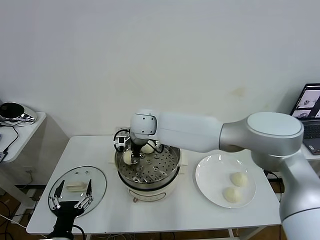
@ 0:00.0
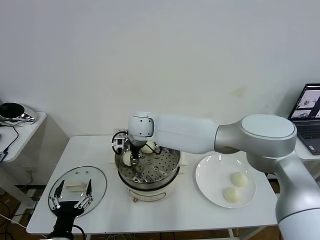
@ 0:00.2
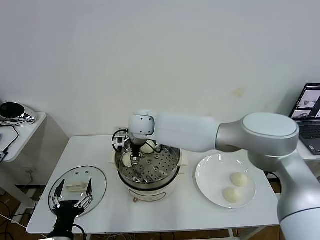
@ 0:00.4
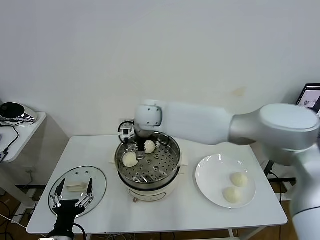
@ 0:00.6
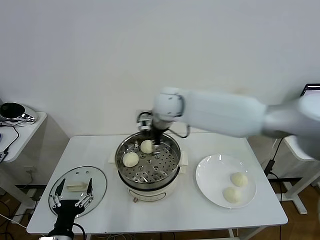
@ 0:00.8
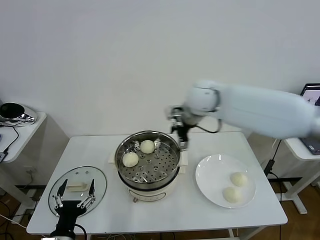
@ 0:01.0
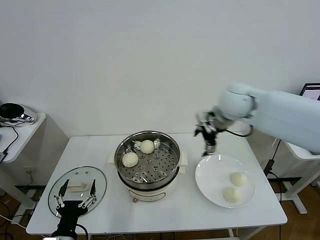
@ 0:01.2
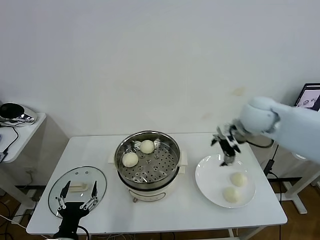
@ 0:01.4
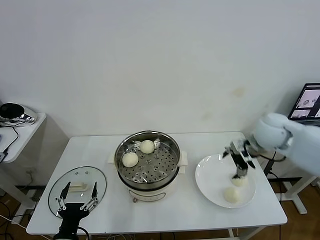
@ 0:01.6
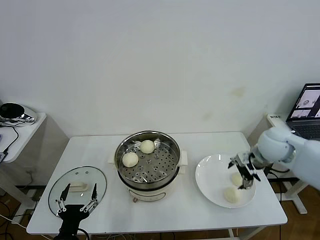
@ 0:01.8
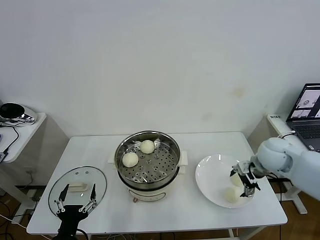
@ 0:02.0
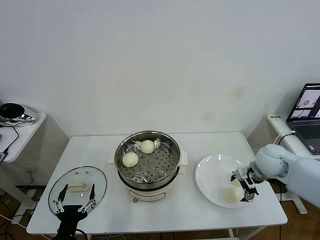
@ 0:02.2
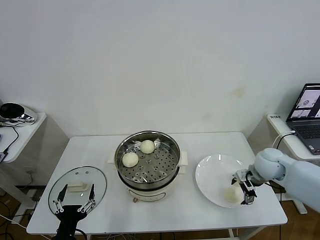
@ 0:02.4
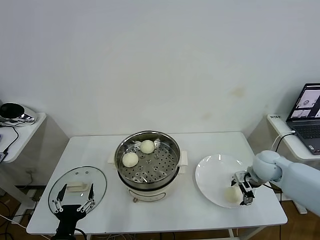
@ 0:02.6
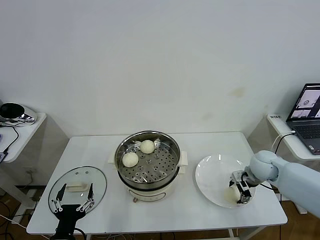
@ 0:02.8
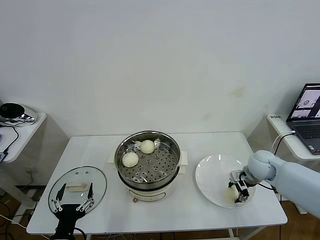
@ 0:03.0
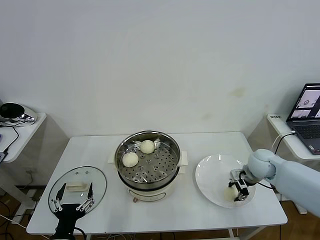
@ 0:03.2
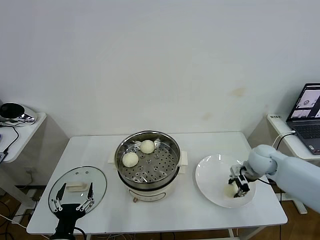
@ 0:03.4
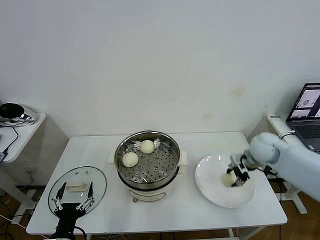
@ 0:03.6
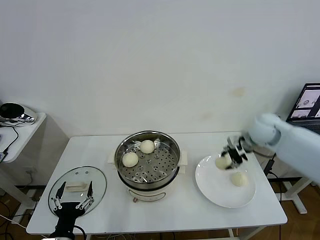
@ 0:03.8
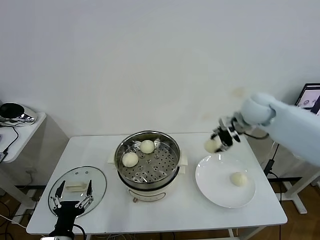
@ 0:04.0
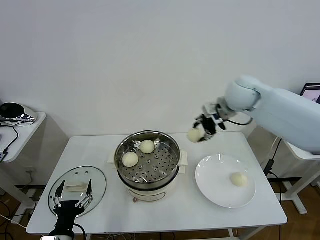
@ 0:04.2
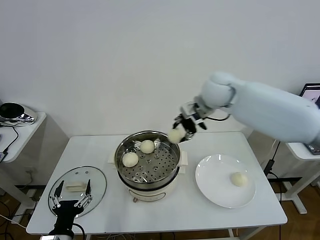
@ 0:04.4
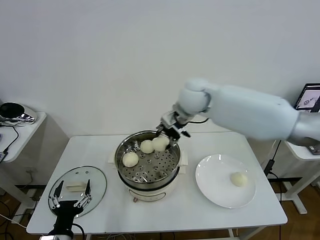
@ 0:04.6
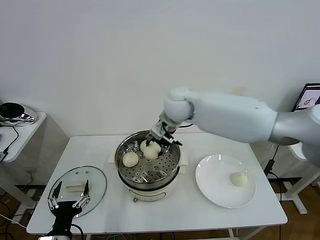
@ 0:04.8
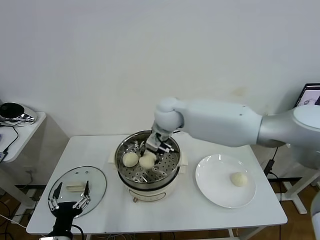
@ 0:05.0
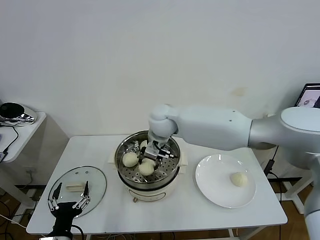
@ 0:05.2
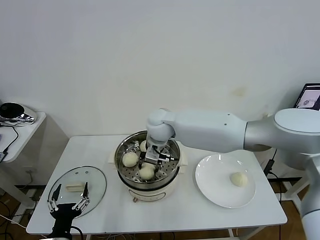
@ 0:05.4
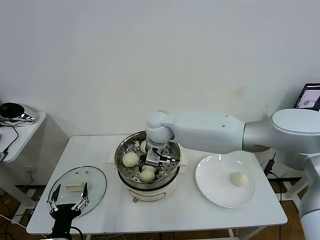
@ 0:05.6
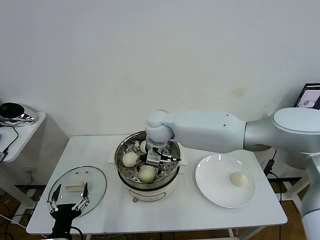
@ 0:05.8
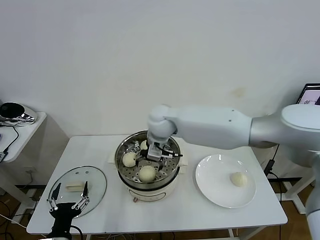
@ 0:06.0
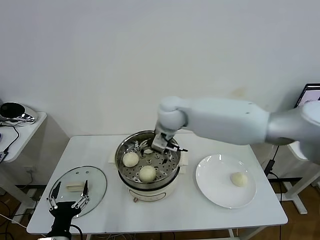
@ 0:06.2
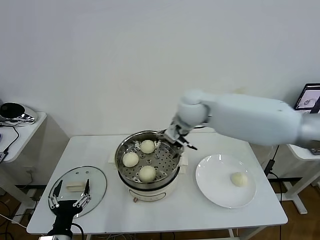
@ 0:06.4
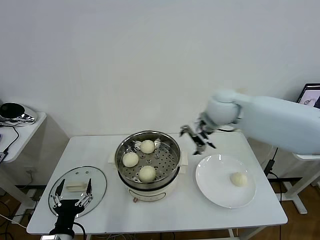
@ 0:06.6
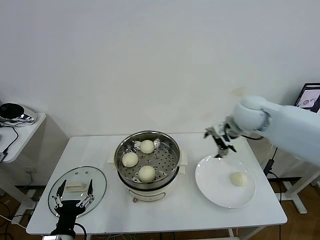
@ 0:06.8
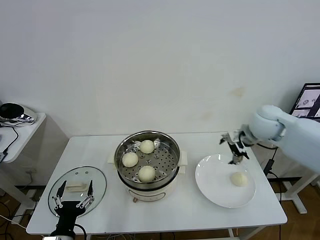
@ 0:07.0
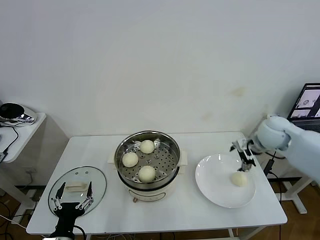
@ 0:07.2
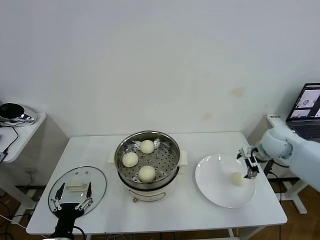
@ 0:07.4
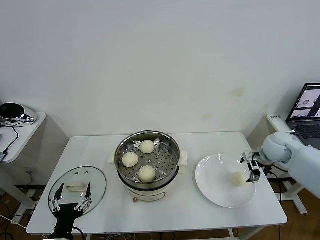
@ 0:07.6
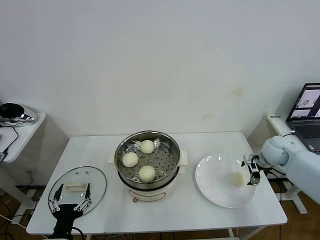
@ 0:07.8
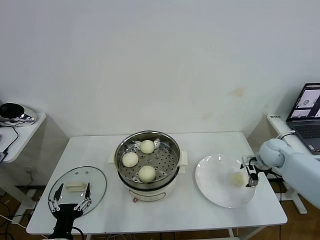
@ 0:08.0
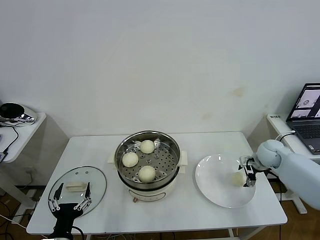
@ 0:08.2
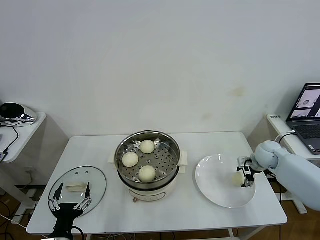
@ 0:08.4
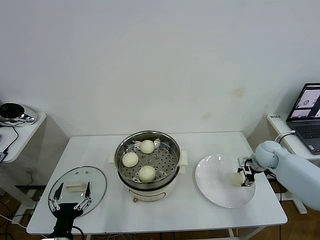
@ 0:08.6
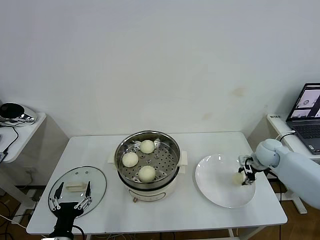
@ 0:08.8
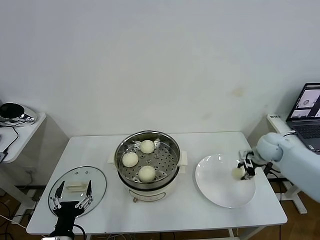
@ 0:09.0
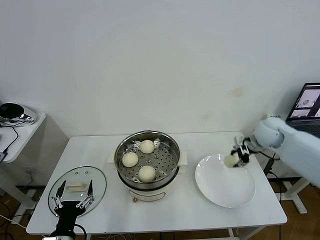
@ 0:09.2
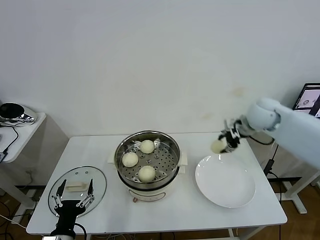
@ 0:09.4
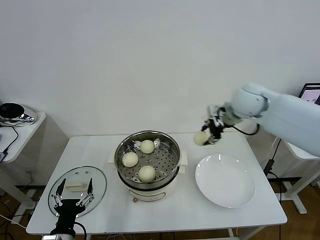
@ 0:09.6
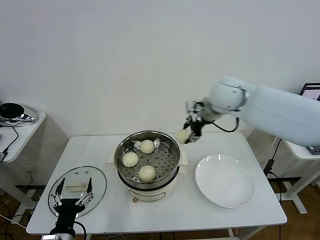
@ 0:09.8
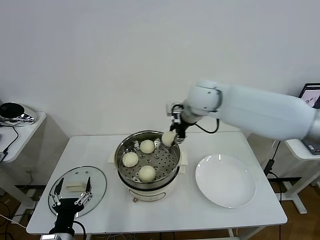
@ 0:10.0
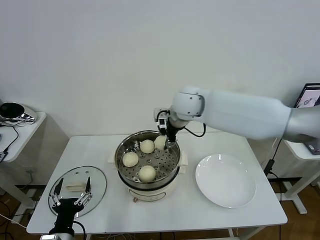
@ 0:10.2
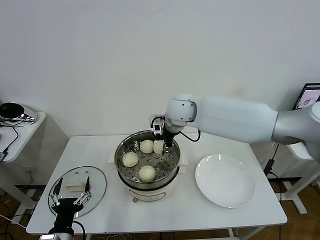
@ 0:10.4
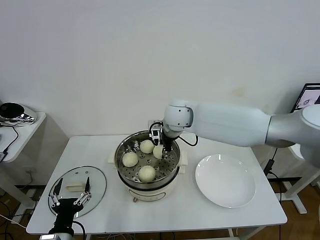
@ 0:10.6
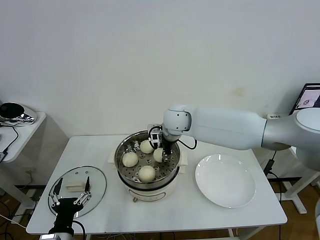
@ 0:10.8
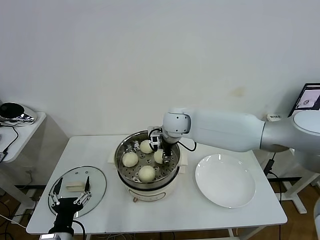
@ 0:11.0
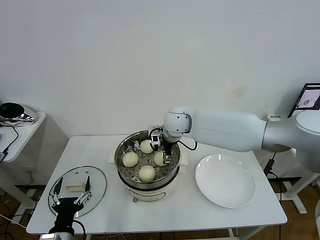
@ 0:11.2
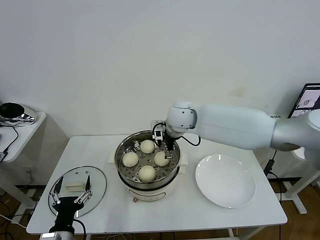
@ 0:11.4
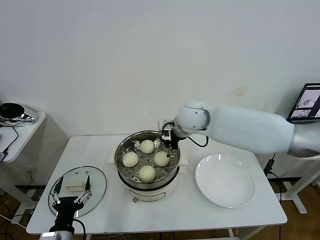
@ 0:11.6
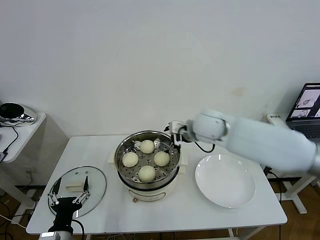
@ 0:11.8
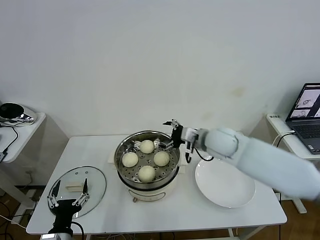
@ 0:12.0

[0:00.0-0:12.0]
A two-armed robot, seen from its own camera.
Task of the whole recording: take steamed baozi put them in steamer then cover it.
Step, 0:00.4 to 0:03.0: Grasp the baozi in the plate with right gripper.
Step, 0:03.2 to 0:05.8: Place the baozi on the steamer with right gripper.
Step, 0:06.0 to 0:08.6: Grasp the baozi in the plate with right gripper.
Step, 0:09.0 to 0:11.2: Place the baozi on the steamer with right gripper.
0:00.0 to 0:01.6: The right gripper is displaced to the right by some 40 cm, and opens.
0:01.6 to 0:03.0: The right gripper shifts roughly 15 cm downward, and closes up.
0:03.0 to 0:04.4: The right gripper shifts approximately 35 cm upward and to the left.
0:04.4 to 0:06.0: The right gripper heads to the left and downward, covering about 15 cm, and opens up.
0:06.0 to 0:07.6: The right gripper moves to the right, roughly 40 cm.
0:07.6 to 0:09.0: The right gripper closes its fingers.
0:09.0 to 0:10.4: The right gripper is displaced to the left by approximately 35 cm.
0:10.4 to 0:12.0: The right gripper heads to the right, backward and downward, covering some 15 cm, and opens up.

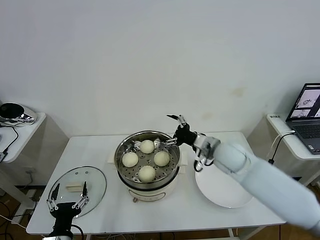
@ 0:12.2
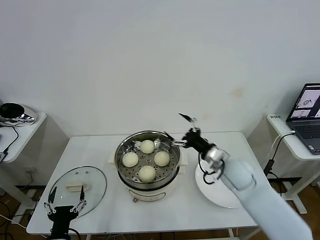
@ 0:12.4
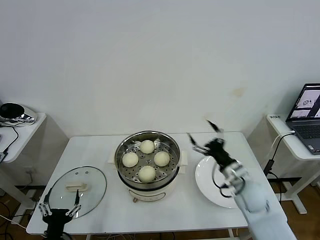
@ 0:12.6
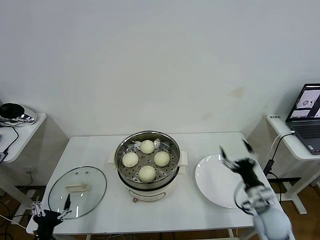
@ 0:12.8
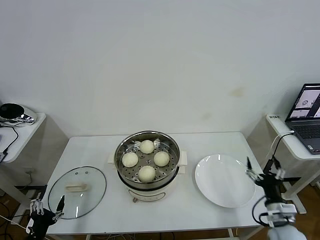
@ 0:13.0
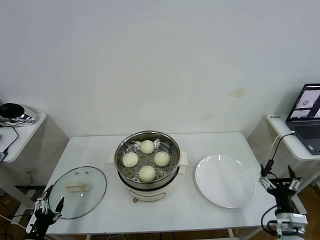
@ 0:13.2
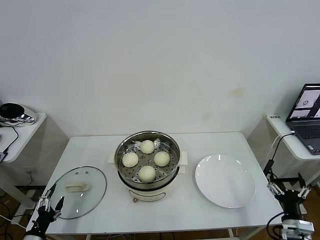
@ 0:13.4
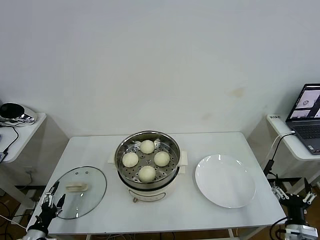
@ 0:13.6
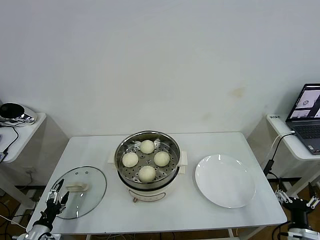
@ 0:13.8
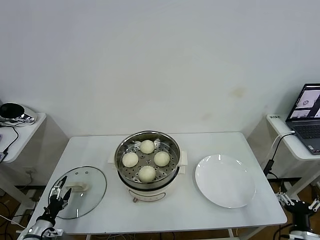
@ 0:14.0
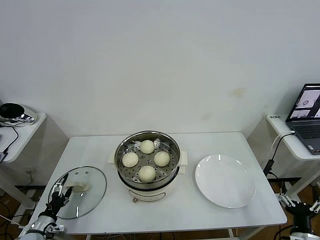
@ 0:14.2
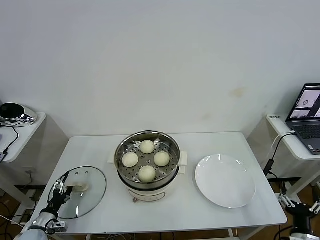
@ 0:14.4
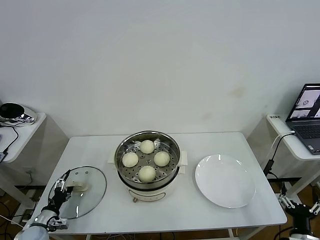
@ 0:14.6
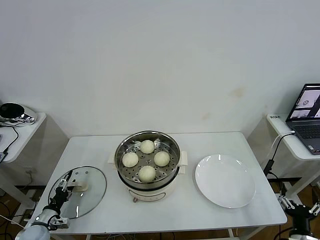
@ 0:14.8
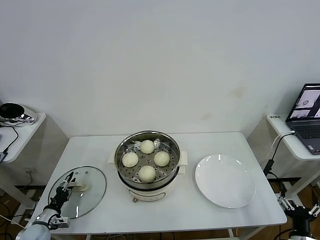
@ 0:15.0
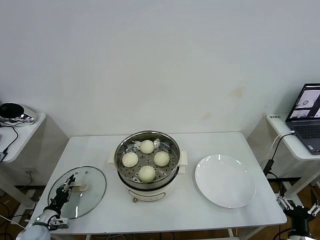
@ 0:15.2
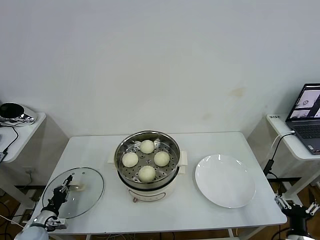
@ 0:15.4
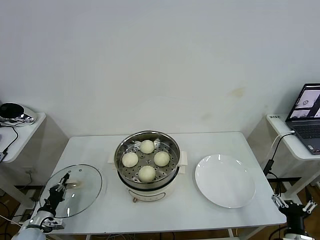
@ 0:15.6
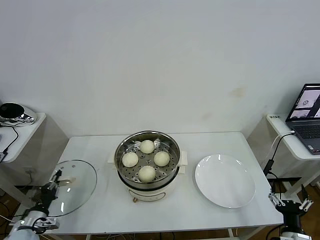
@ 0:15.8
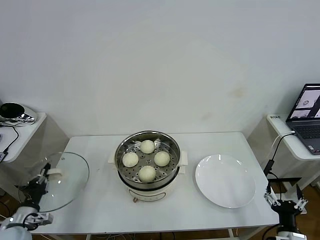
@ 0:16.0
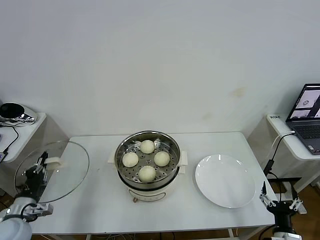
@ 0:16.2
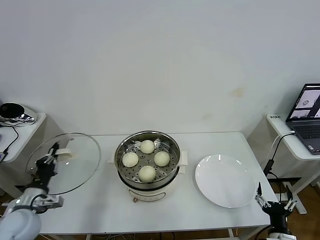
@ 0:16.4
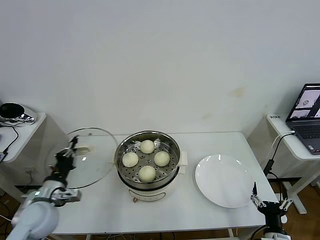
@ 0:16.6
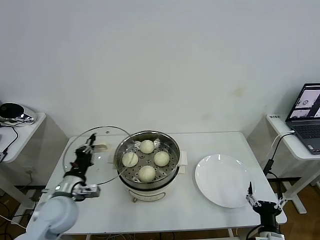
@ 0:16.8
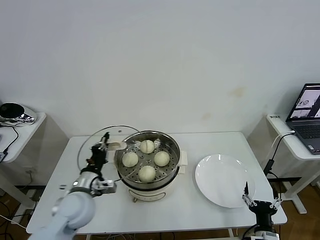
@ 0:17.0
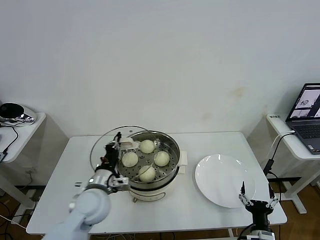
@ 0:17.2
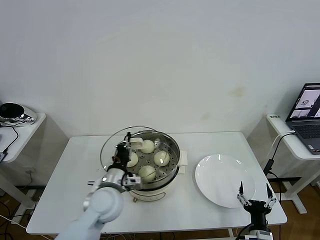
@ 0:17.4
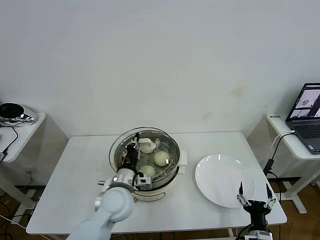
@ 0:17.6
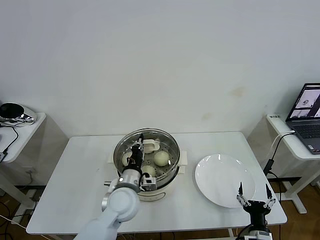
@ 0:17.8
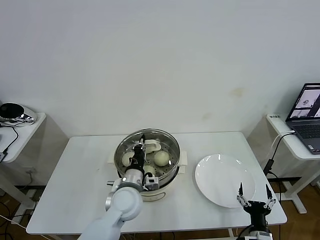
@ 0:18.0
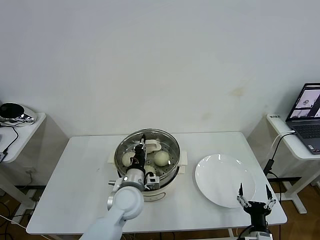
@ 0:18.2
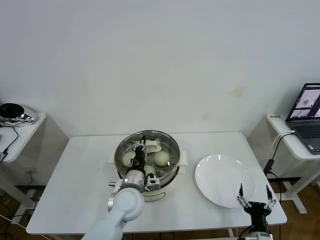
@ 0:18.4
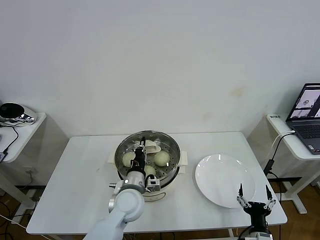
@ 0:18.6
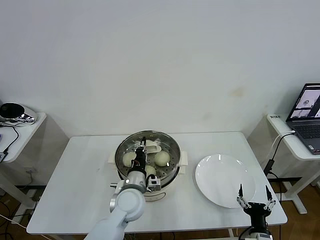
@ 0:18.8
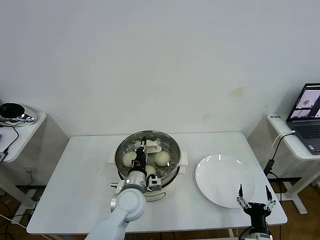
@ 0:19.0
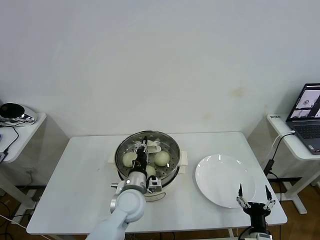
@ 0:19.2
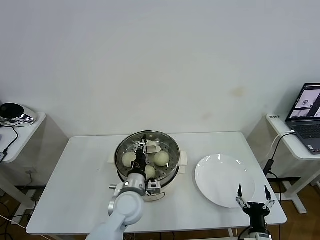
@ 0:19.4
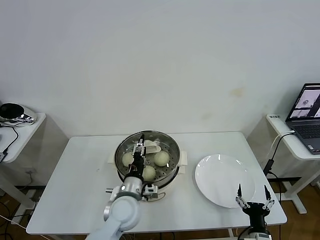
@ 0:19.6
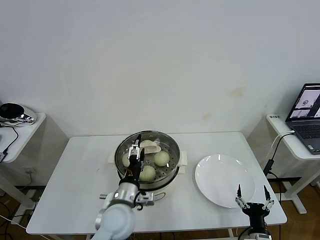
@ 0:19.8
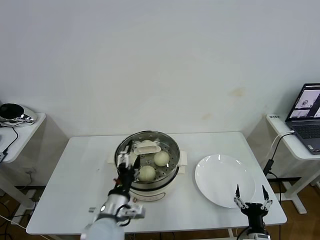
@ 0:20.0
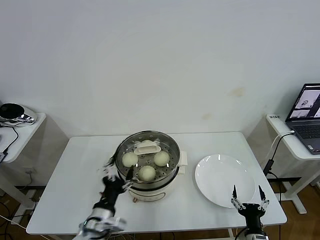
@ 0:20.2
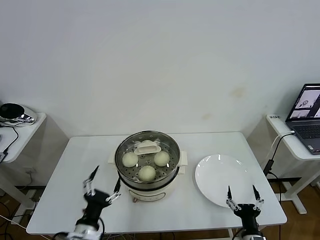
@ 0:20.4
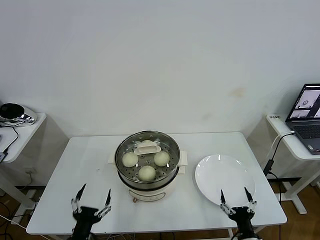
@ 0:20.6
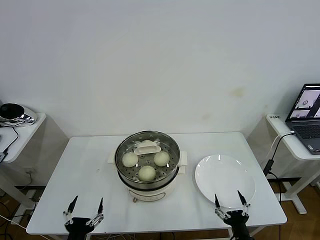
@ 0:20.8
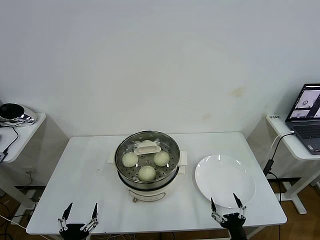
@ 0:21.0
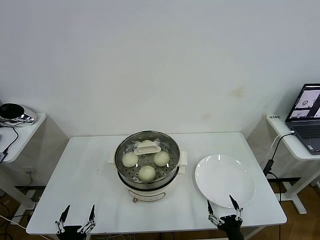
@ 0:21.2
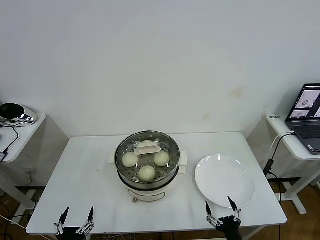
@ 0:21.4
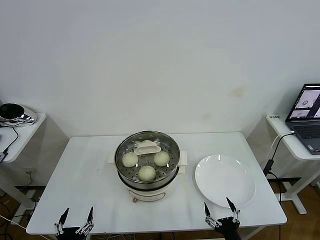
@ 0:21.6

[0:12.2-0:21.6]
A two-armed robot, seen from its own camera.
Task of the whole recording: take steamed baozi put them in steamer then cover it.
Step, 0:12.2 to 0:15.4: Grasp the pot lid with left gripper.
Step, 0:15.6 to 0:19.6: Place the pot lid on the steamer with left gripper.
0:12.2 to 0:13.8: The right gripper is displaced backward, to the right and downward by roughly 35 cm; the left gripper travels to the left and downward by about 20 cm.
0:13.8 to 0:15.4: The left gripper moves forward, roughly 5 cm, and closes.
0:15.4 to 0:17.0: The left gripper shifts roughly 30 cm to the right and upward. Meanwhile the right gripper goes about 5 cm to the left.
0:17.0 to 0:18.4: The left gripper travels to the right by approximately 15 cm.
0:18.4 to 0:20.0: The left gripper goes approximately 10 cm backward, and opens its fingers.
0:20.0 to 0:21.6: The left gripper goes some 25 cm to the left, backward and downward. The right gripper ends up approximately 5 cm from where it was.
